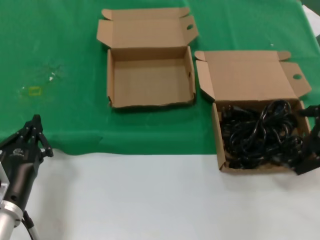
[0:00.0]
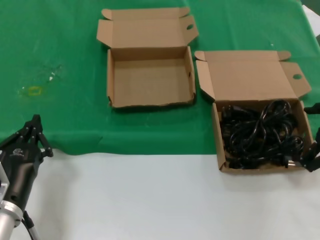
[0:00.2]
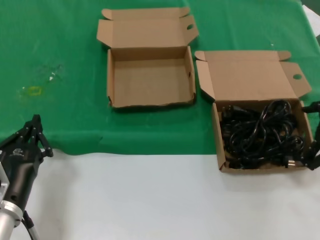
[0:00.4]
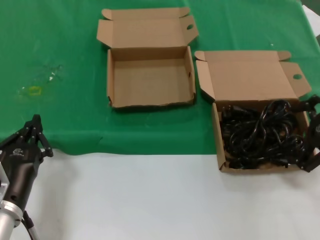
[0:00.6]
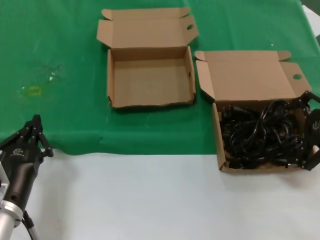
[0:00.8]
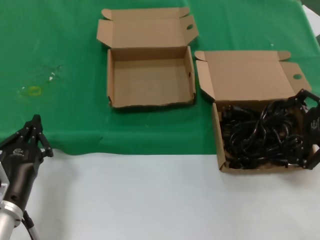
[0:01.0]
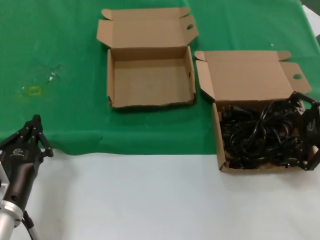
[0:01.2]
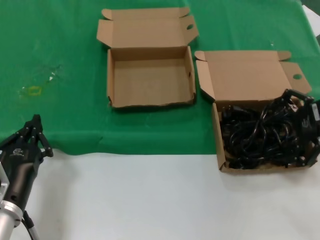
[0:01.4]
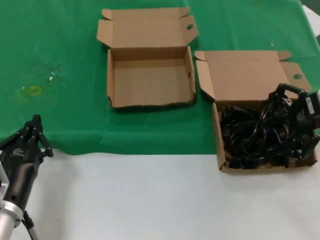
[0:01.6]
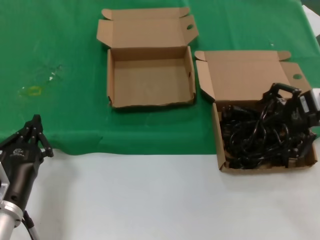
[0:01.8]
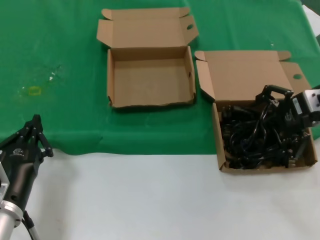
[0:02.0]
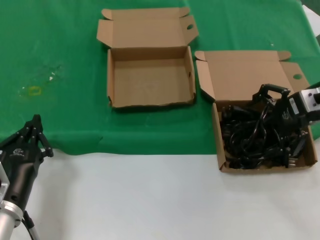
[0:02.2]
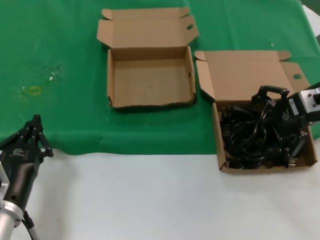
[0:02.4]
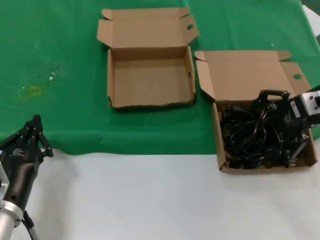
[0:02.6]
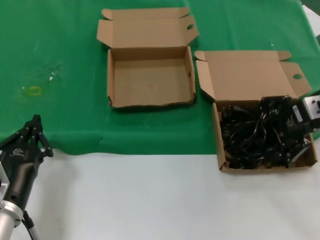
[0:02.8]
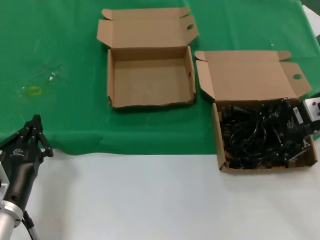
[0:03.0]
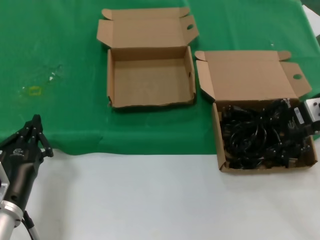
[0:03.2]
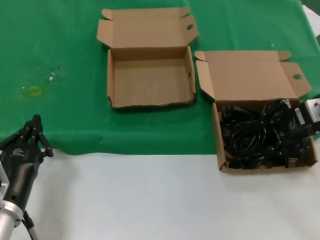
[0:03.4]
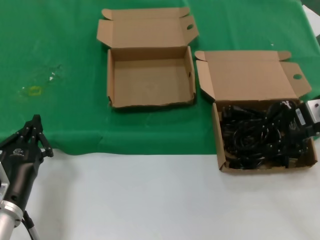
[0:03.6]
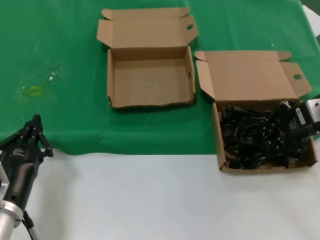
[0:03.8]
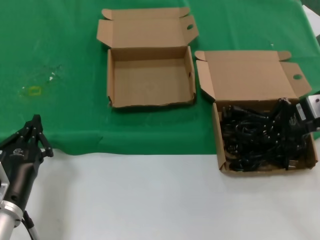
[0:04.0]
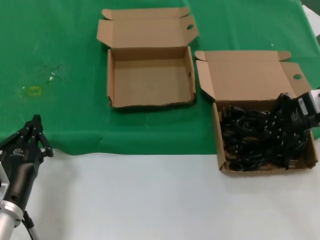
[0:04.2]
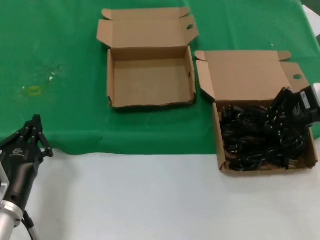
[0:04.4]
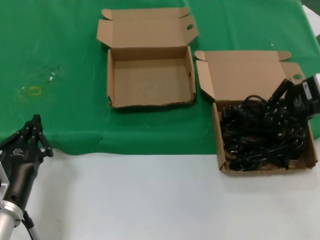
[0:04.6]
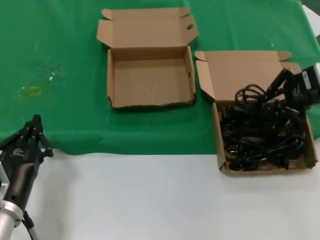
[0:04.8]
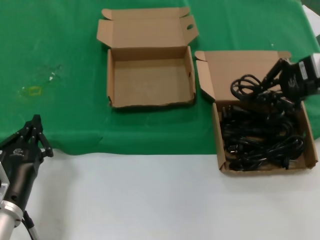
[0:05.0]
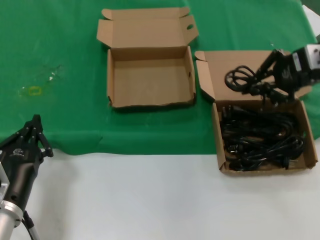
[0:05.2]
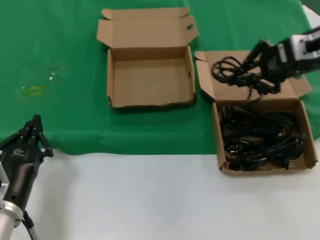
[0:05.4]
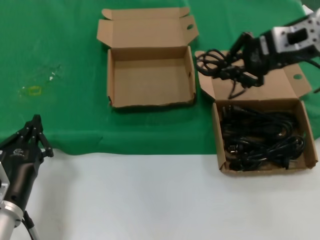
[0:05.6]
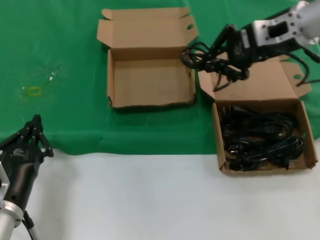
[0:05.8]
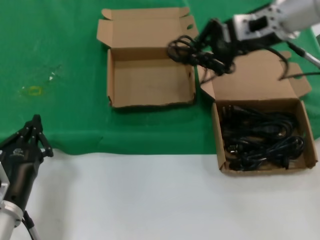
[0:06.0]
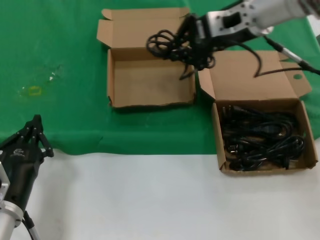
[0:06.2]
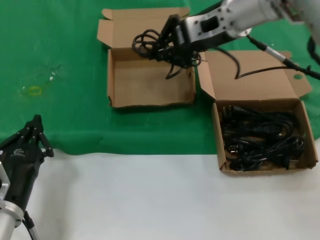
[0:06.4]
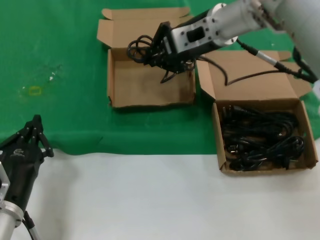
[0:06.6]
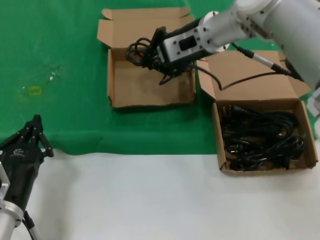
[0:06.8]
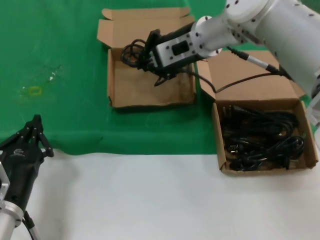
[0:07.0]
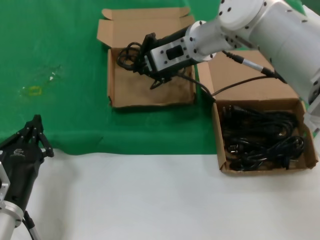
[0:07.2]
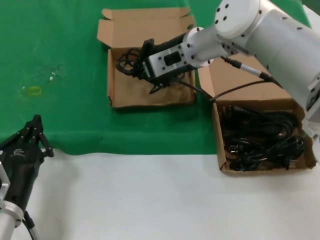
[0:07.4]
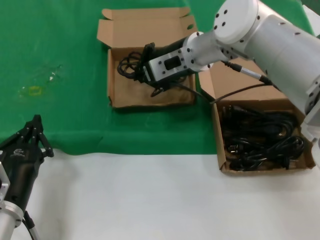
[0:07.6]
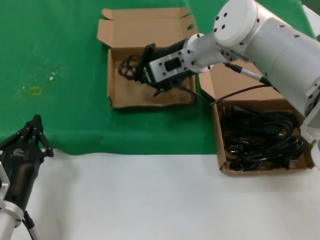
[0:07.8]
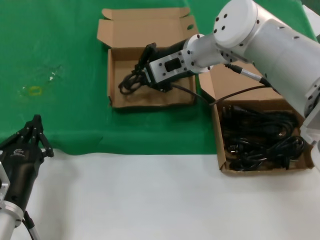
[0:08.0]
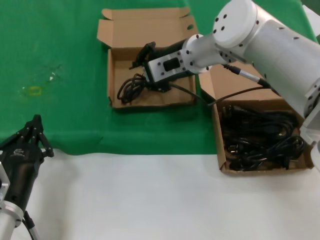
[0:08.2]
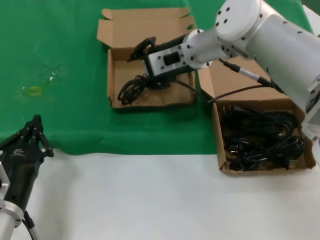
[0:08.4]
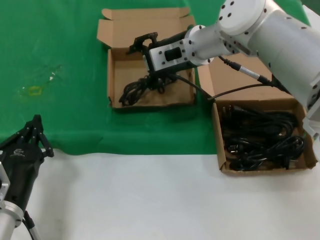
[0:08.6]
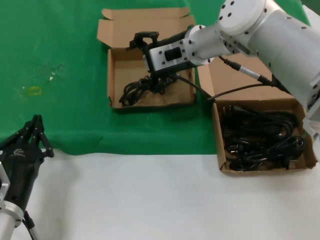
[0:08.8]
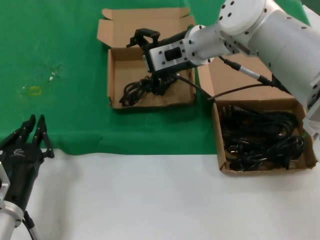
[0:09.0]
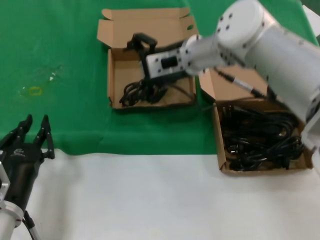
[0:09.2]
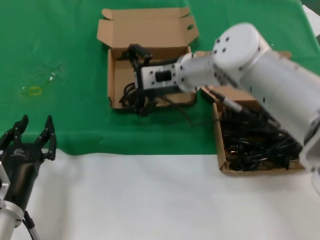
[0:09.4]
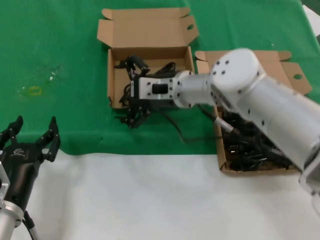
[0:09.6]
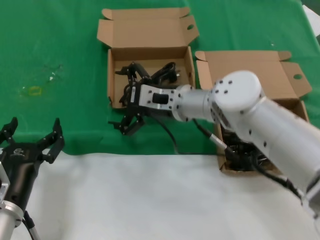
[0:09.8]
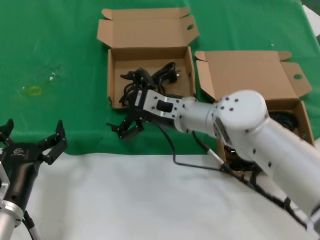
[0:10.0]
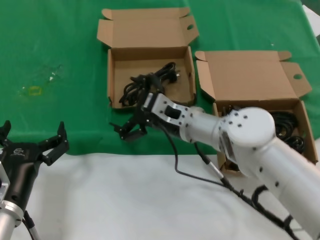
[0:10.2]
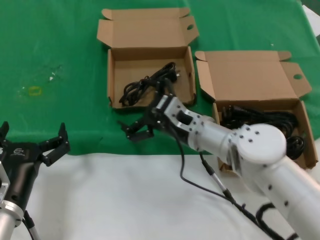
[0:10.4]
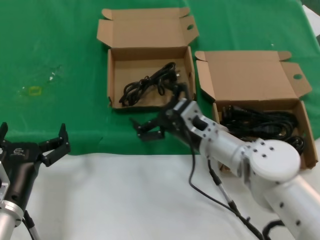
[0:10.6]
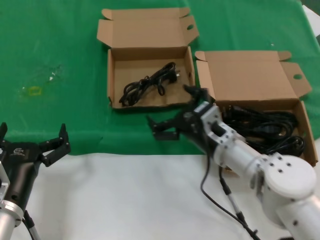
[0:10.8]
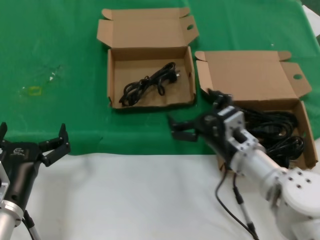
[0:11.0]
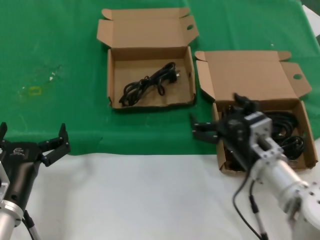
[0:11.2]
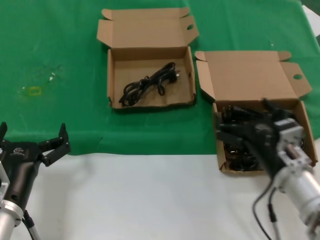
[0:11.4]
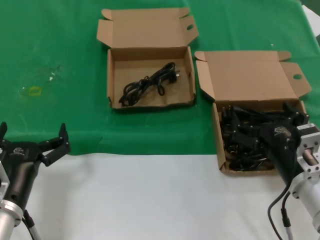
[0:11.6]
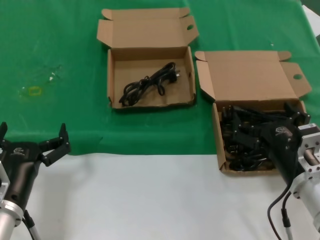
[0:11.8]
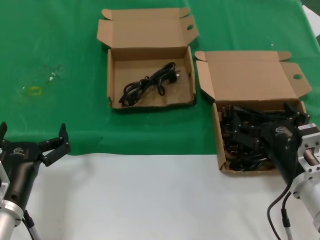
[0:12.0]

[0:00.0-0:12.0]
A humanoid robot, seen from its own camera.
Task of the whole recording: take the parts from the box containing them and put them into an empty box.
Step, 0:00.0 to 0:03.8: Grasp the data cable.
Step, 0:04.0 to 0:08.2: Place the data cable in the another box.
0:00.0 to 0:01.6: The right hand shifts approximately 15 cm forward and upward.
0:01.6 to 0:04.4: The hands stay close to where they were, moving slightly.
0:04.4 to 0:06.0: The right hand heads to the left, upward and forward, covering about 15 cm.
0:06.0 to 0:07.6: The right hand is displaced to the left and downward by roughly 15 cm.
0:07.6 to 0:09.0: Neither hand changes place.
0:09.0 to 0:10.4: The right hand shifts roughly 20 cm downward and backward.
0:10.4 to 0:12.0: The right hand goes about 20 cm to the right and backward.

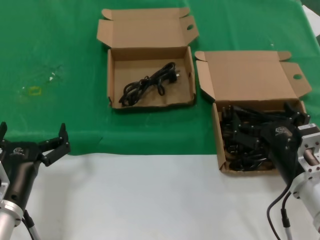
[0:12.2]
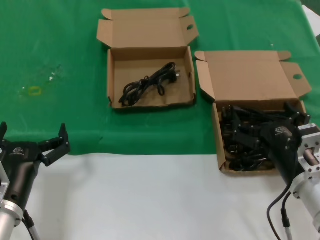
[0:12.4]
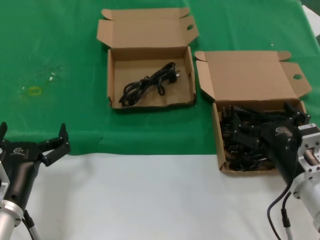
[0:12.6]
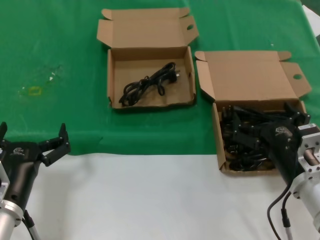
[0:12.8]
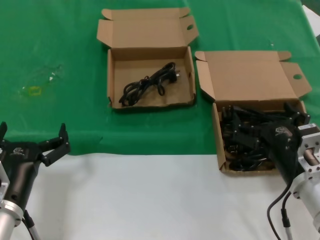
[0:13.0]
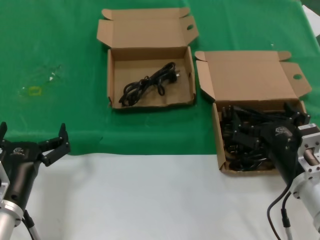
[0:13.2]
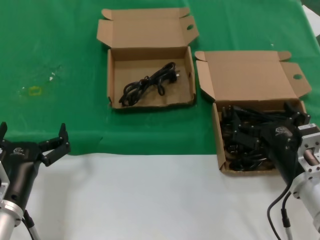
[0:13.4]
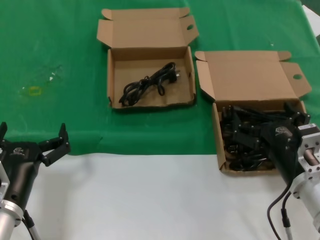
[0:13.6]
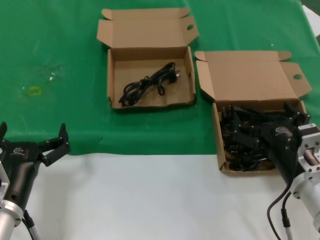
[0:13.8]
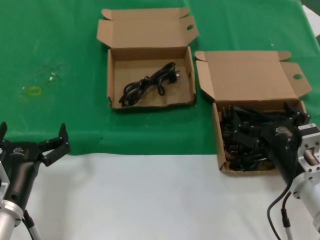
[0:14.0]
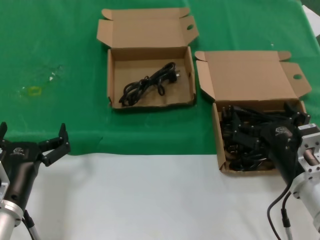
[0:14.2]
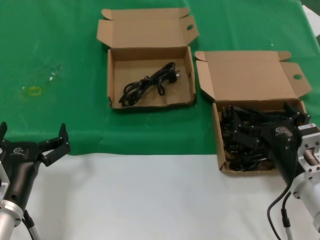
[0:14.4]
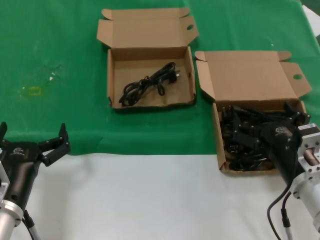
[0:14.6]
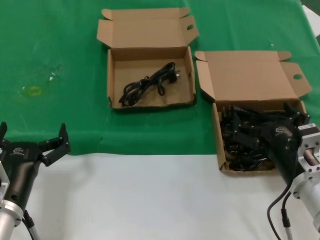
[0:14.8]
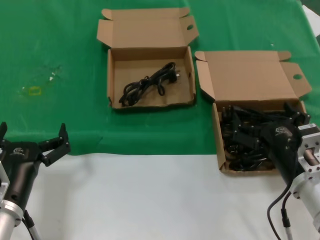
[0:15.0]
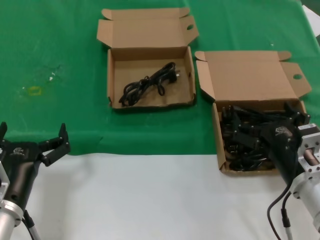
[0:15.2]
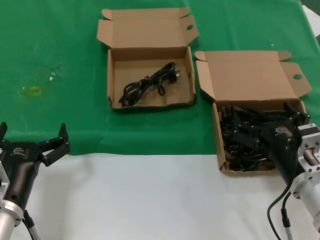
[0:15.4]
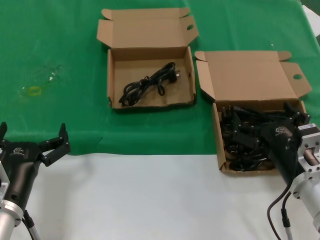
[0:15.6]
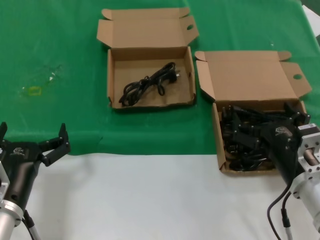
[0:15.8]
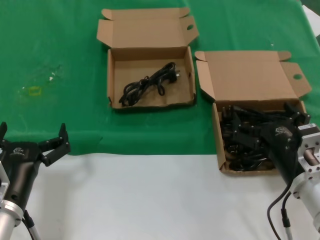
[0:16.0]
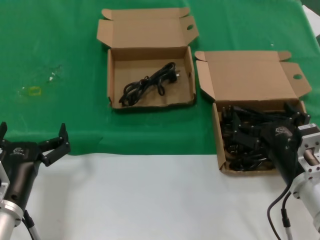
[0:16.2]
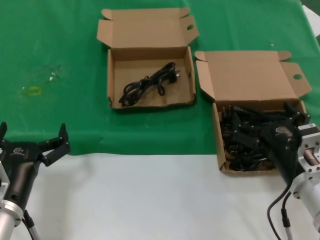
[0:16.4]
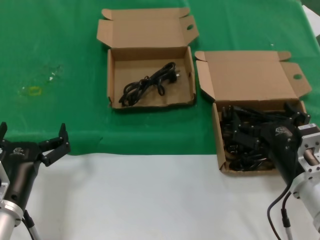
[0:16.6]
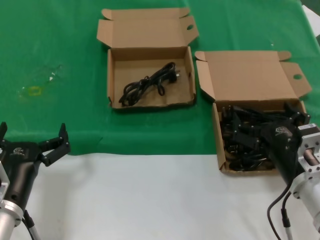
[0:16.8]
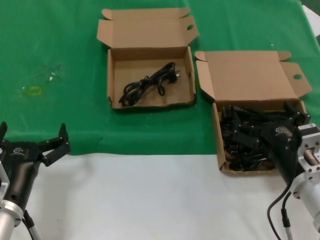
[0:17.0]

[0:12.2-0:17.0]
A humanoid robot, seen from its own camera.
Task of the whole recording: take the parts from the box containing them and put them into an empty box.
0:12.2 to 0:17.0: The two hands keep their place.

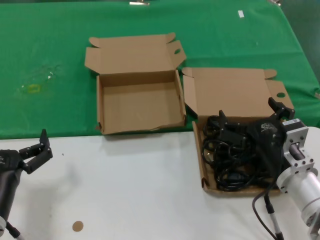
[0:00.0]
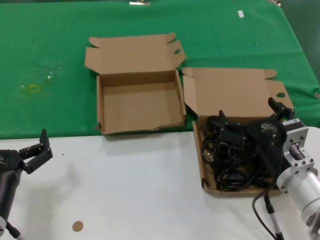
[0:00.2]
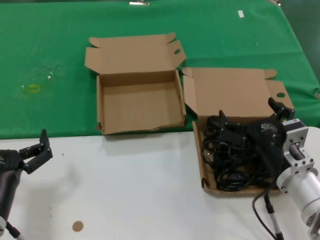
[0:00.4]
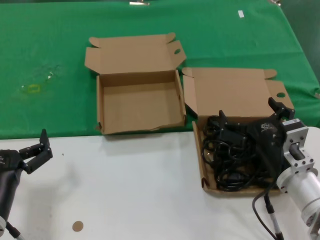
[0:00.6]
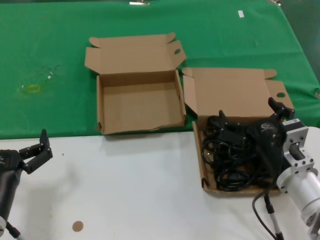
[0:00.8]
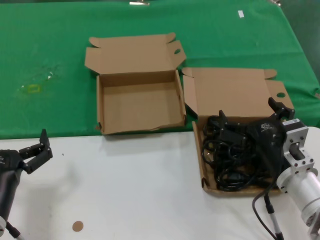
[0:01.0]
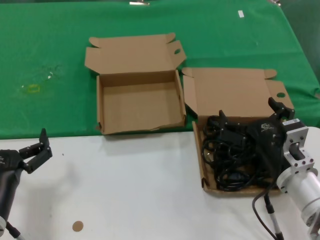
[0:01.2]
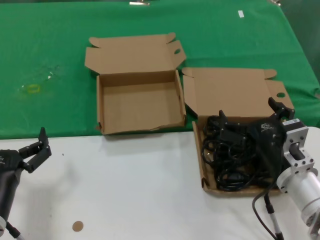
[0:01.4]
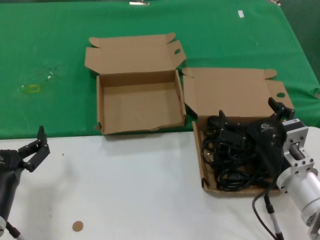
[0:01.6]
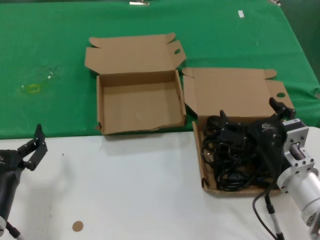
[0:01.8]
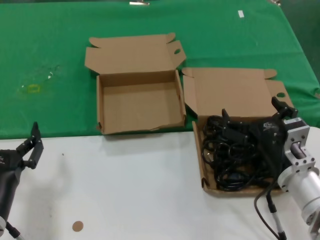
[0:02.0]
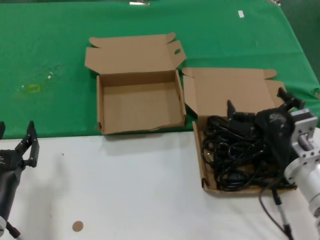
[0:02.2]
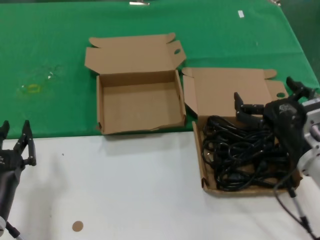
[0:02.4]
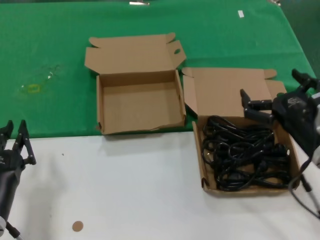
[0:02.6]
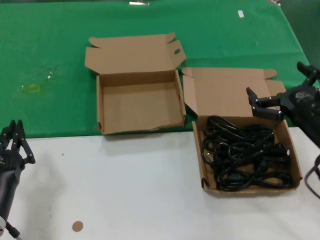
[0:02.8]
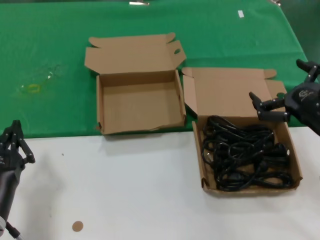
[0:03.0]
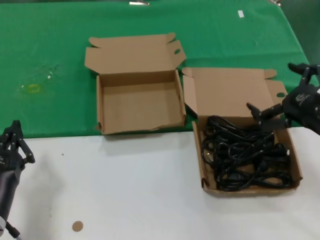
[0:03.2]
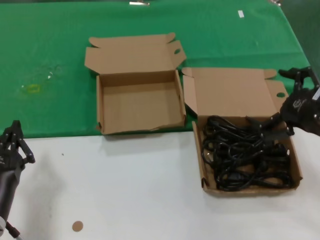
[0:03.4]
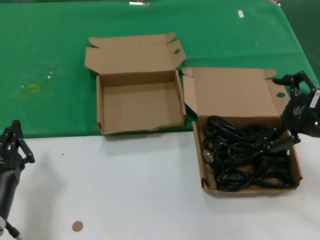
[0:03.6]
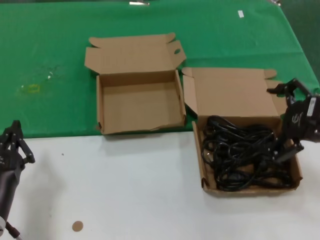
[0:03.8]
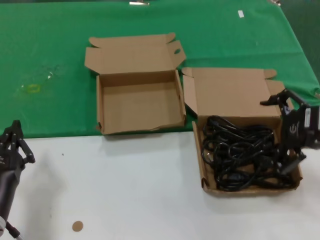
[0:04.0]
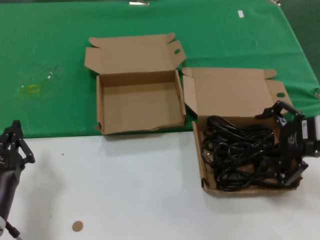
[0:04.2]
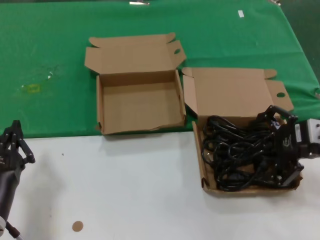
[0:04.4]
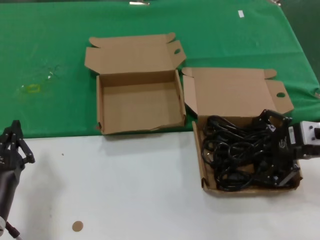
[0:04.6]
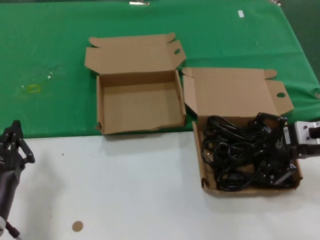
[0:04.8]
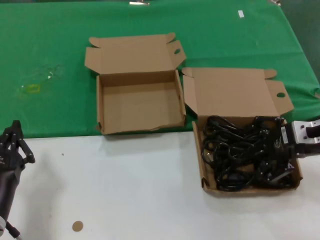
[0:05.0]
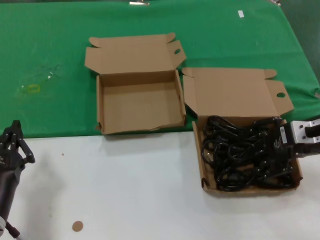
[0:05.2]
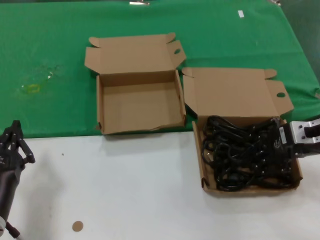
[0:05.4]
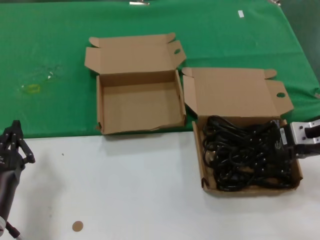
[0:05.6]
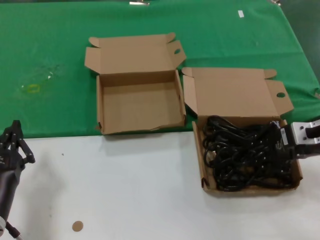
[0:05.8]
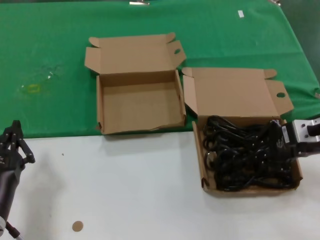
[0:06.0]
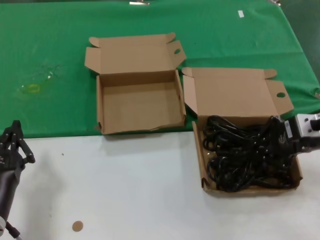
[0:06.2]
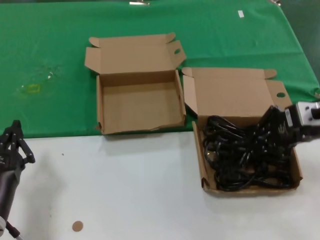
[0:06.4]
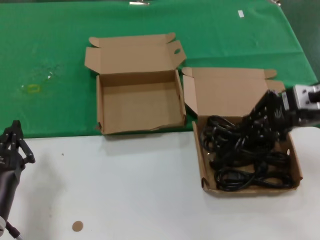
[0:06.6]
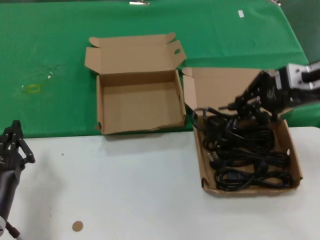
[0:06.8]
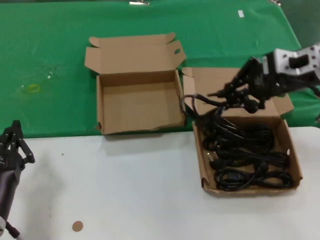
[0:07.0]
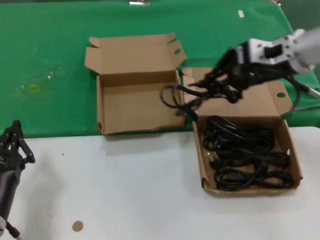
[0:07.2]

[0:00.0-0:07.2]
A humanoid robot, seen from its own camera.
Task of the whole recording: take the parts from the box containing them and put them into an empty box.
Step, 0:00.0 to 0:05.8: Grasp the data cable.
0:00.0 to 0:01.4: Both hands stay put.
0:01.4 to 0:02.8: The right hand shifts some 10 cm upward and to the right.
0:02.8 to 0:04.4: The right hand moves upward and to the right, about 10 cm.
0:04.4 to 0:05.8: There are only small adjustments of the hands.
0:05.8 to 0:07.2: The right hand goes some 15 cm upward, forward and to the left.
